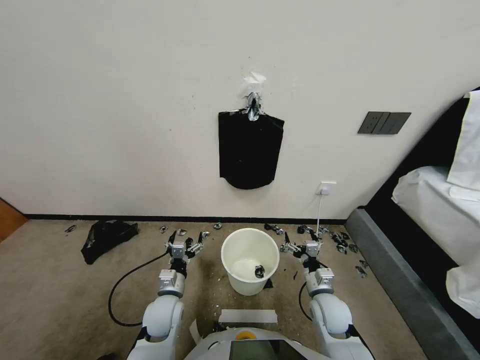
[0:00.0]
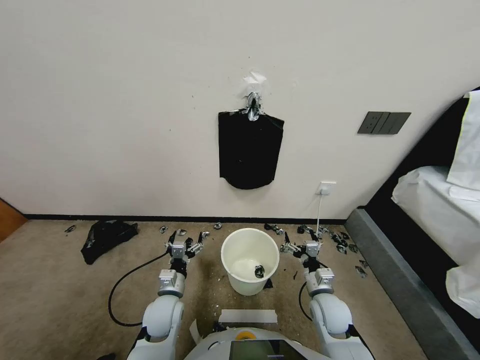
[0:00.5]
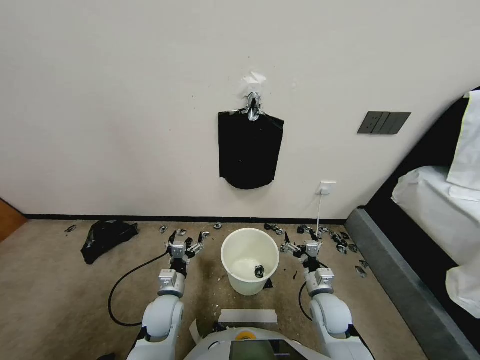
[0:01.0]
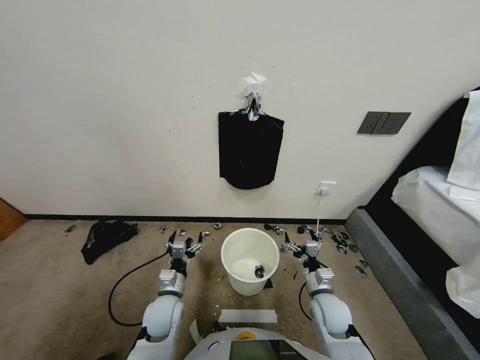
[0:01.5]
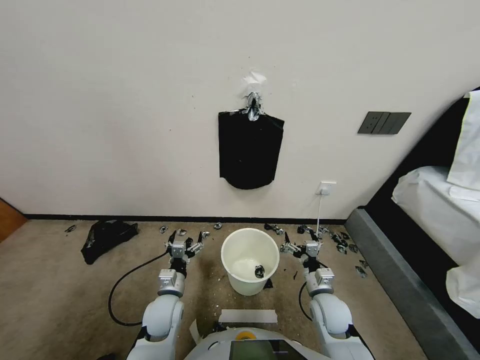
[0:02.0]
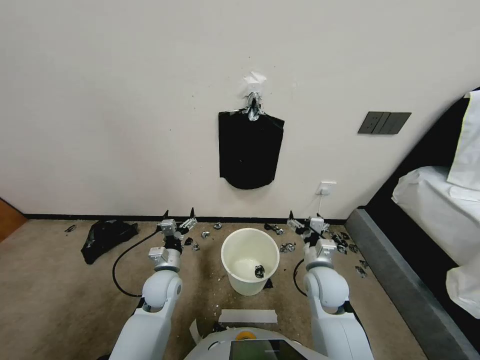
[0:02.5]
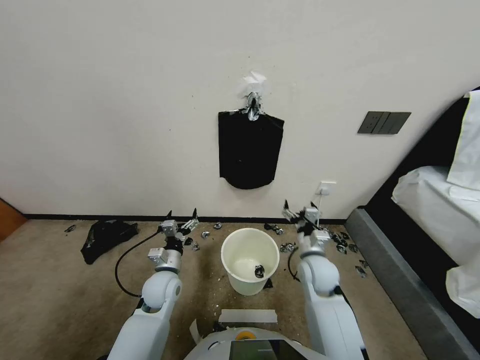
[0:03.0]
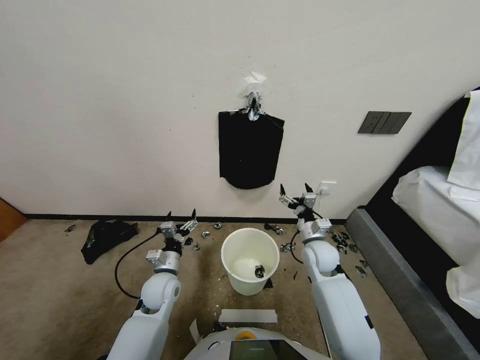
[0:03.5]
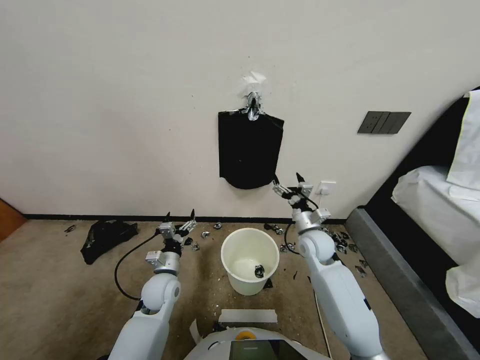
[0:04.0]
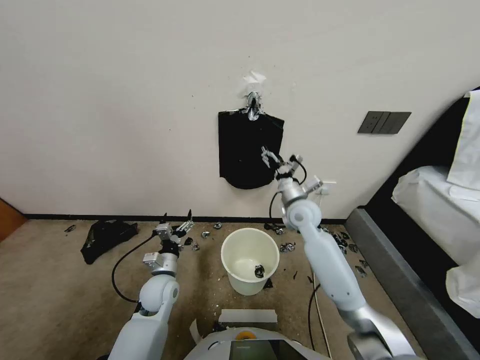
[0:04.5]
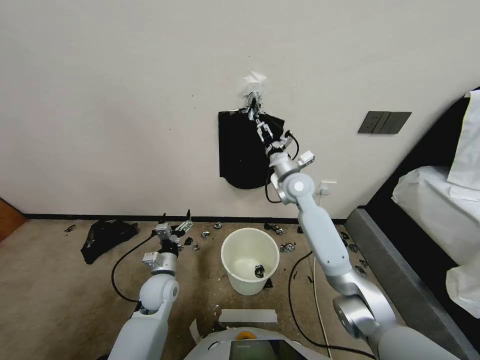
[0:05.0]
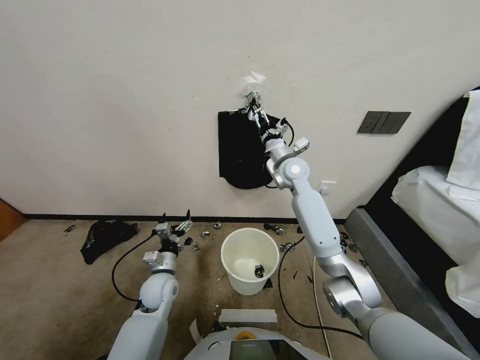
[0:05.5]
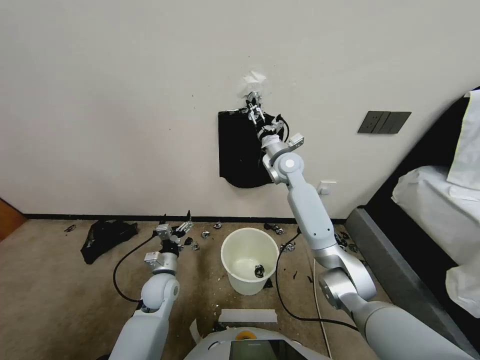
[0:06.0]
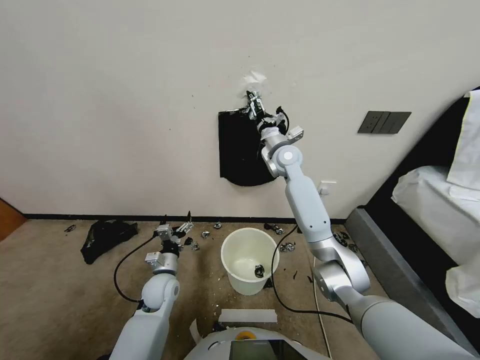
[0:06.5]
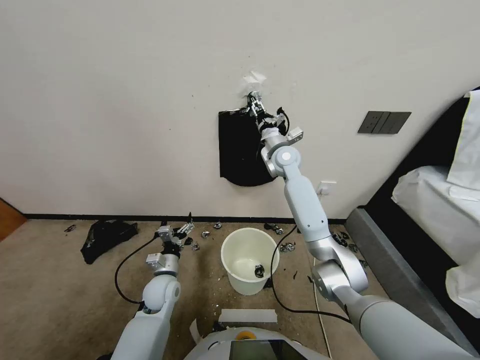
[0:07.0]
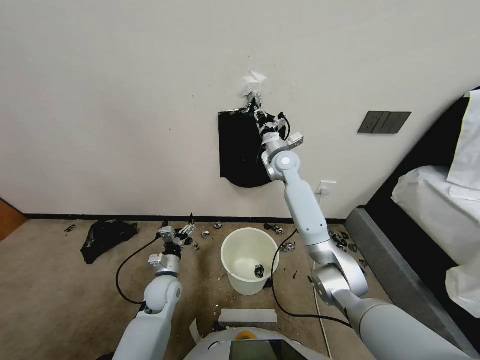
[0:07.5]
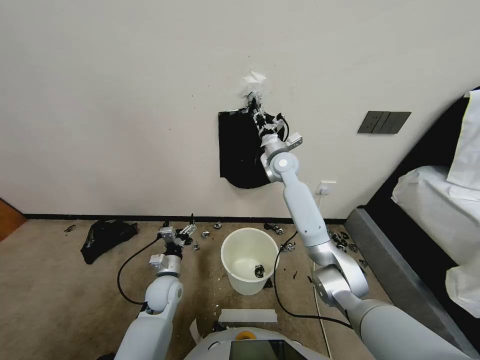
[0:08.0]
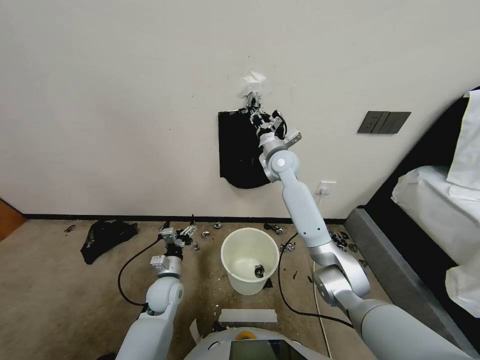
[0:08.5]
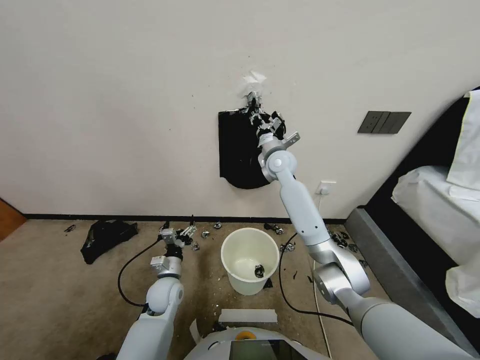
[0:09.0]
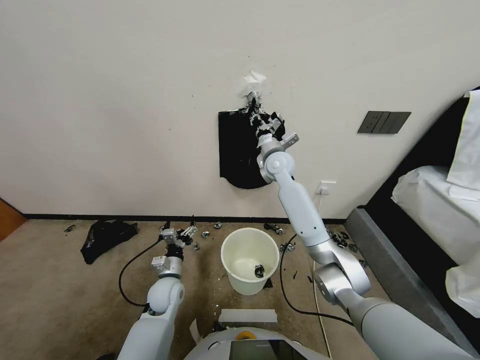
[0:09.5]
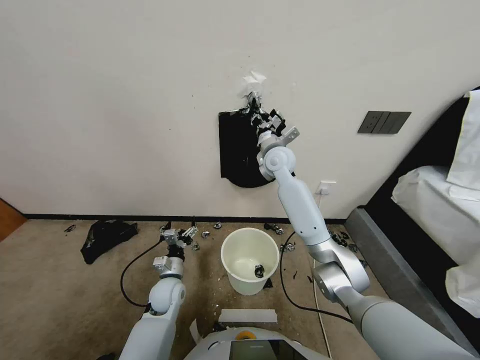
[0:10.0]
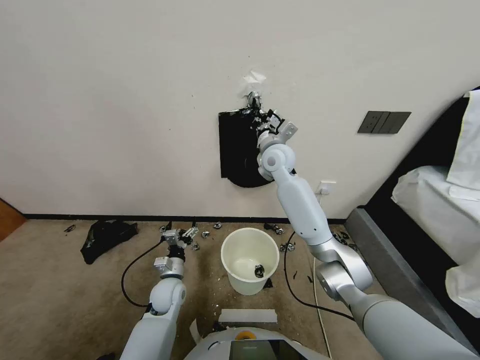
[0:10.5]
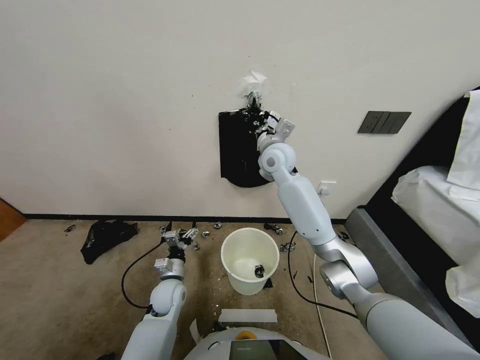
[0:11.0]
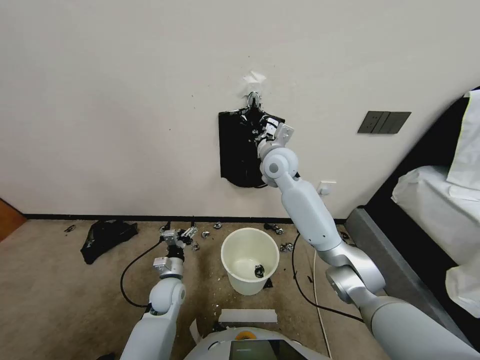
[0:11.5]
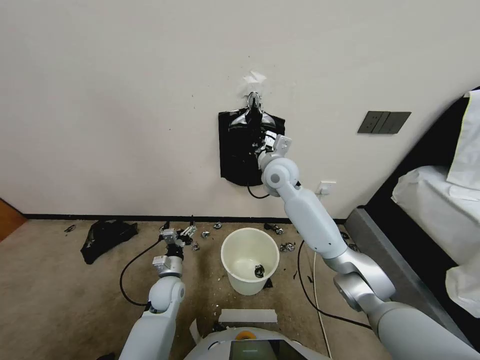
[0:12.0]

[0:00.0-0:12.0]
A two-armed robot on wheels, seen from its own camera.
Task of the whole recording: Place a trash bag onto the trash bin.
2.0 to 4.0 s: The right gripper heads forward and upward, covering about 20 cm.
4.0 to 6.0 s: The right gripper heads forward and upward, covering approximately 20 cm.
6.0 to 8.0 s: The right gripper closes.
8.0 to 10.0 s: The right gripper moves approximately 5 cm.
10.0 to 12.0 s: The right gripper moves backward, approximately 5 cm.

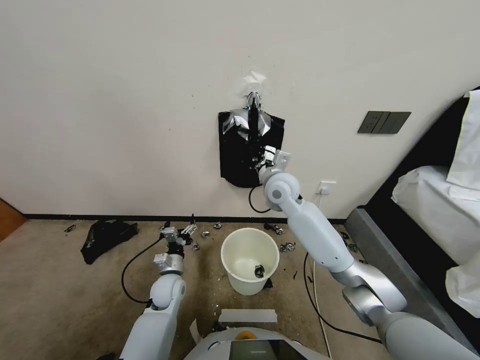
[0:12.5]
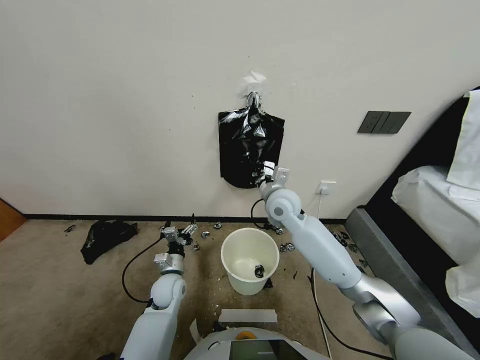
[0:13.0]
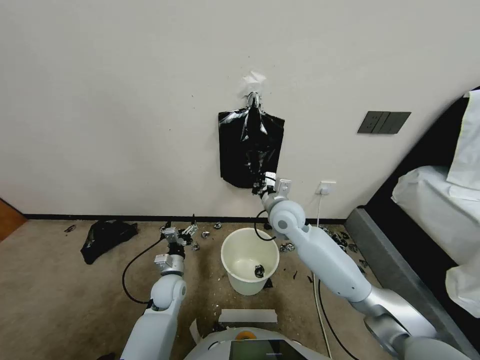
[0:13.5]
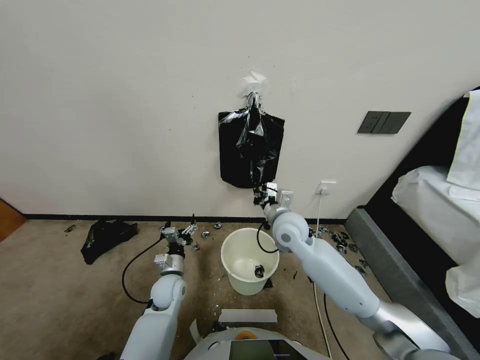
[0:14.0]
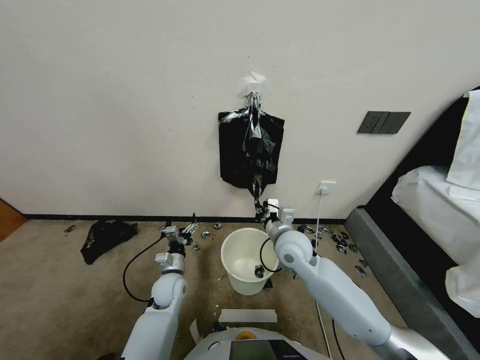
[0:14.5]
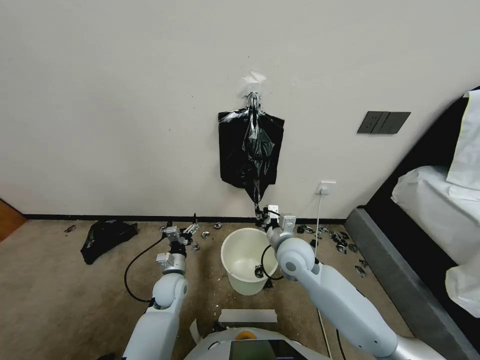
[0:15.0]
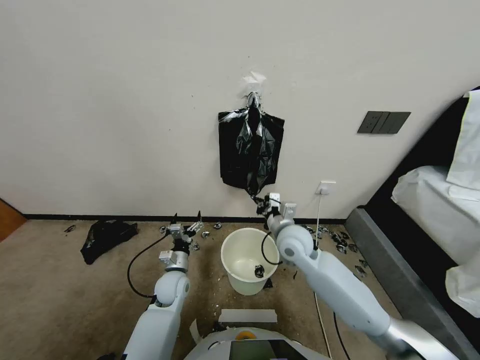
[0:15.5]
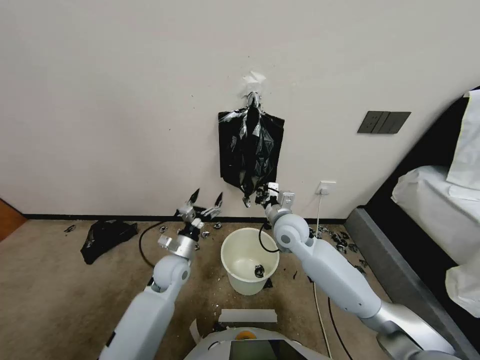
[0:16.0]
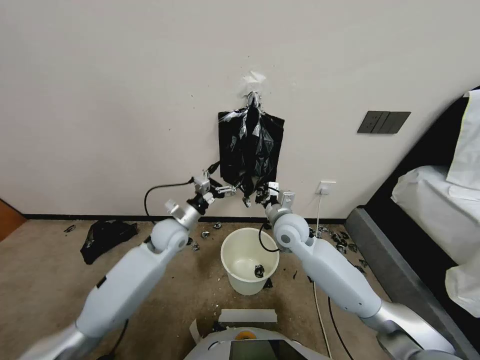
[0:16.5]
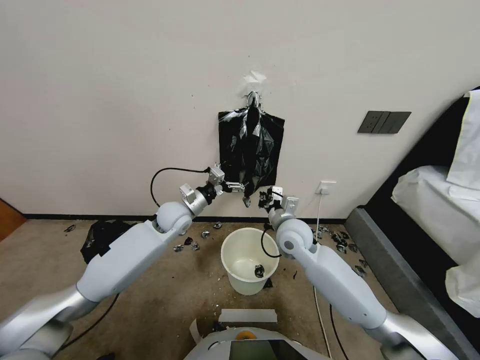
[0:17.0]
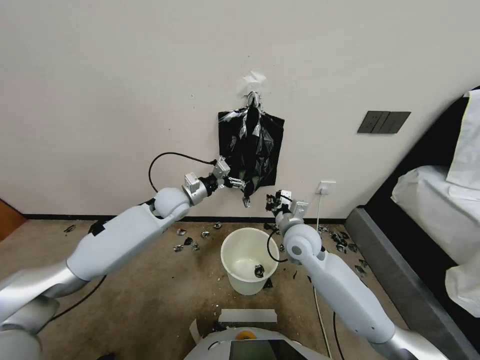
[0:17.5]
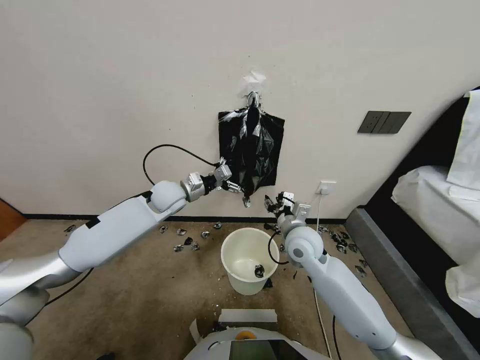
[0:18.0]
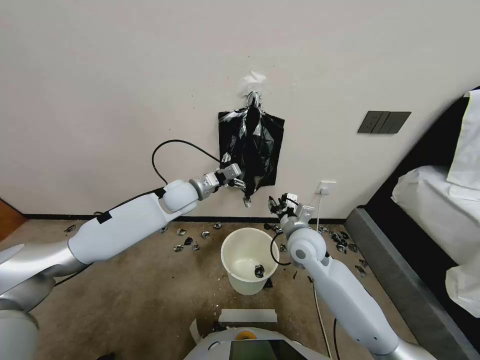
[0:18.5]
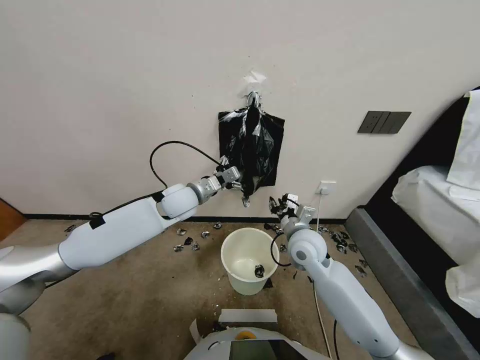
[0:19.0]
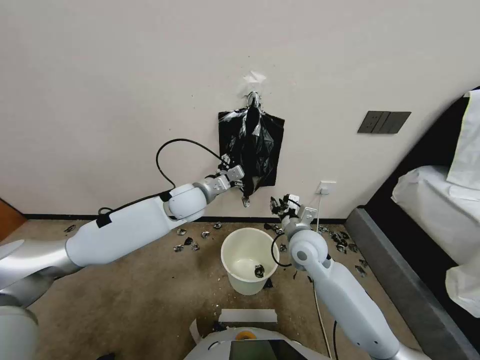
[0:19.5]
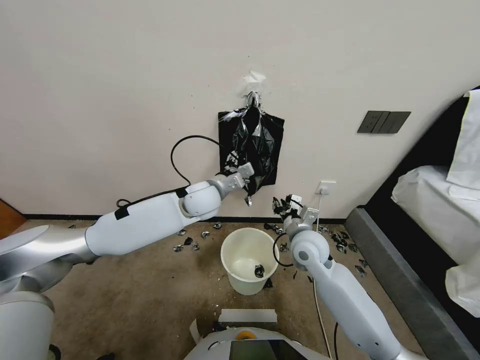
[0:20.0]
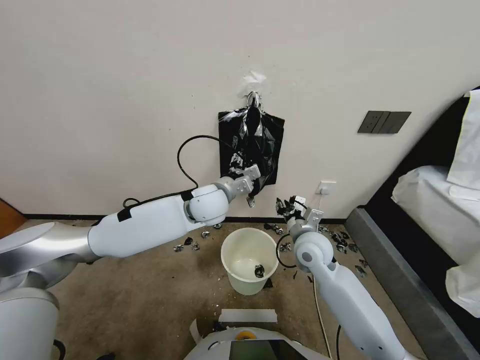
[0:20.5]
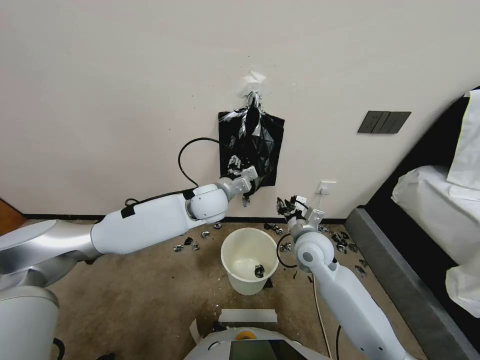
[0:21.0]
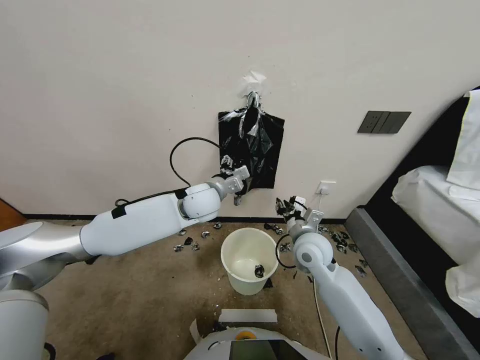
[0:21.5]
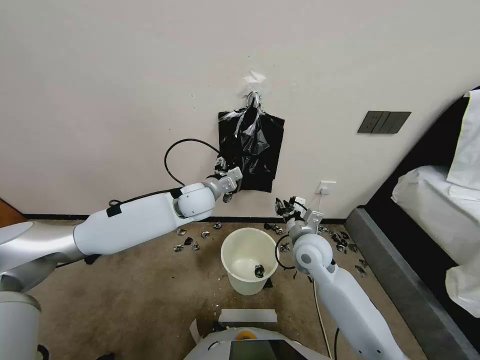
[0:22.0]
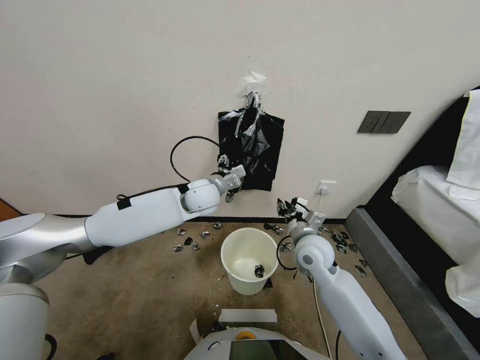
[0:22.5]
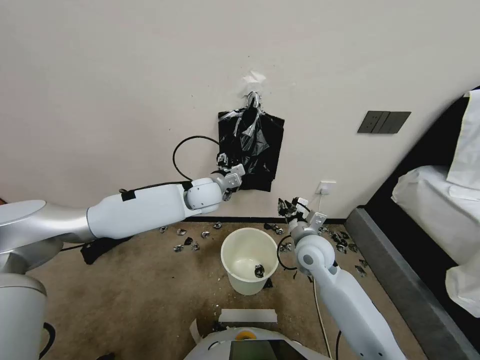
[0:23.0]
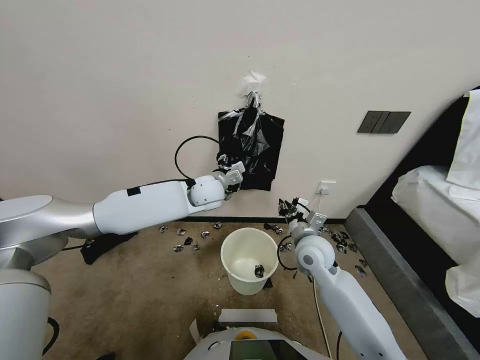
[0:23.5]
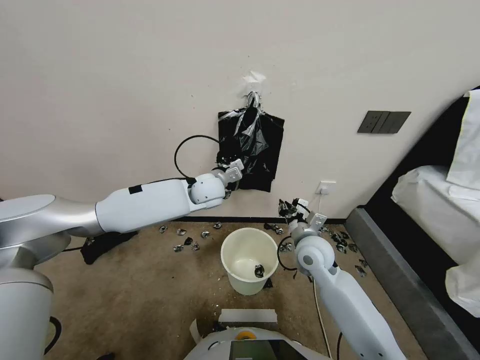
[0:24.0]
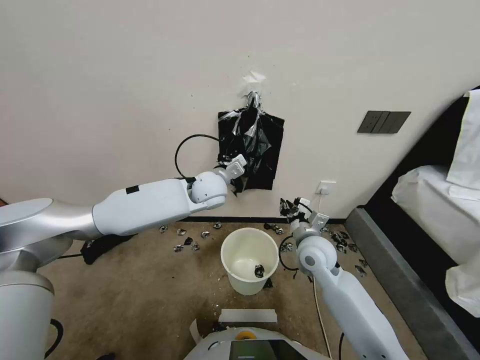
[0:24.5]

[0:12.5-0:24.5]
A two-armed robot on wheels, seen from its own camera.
Task of the whole recording: Place a trash bag onto the trash bin.
12.5 to 14.5 s: The right gripper shifts some 15 cm backward and downward.
14.5 to 16.5 s: The right gripper shifts approximately 5 cm forward. Meanwhile the left gripper heads upward and forward, covering some 20 cm.
16.5 to 18.5 s: The left gripper moves upward and forward, roughly 10 cm; the right gripper changes place by approximately 5 cm.
18.5 to 20.5 s: The left gripper is displaced to the right by roughly 10 cm.
20.5 to 22.5 s: The grippers stay close to where they were, moving slightly.
22.5 to 24.5 s: The left gripper closes its fingers.

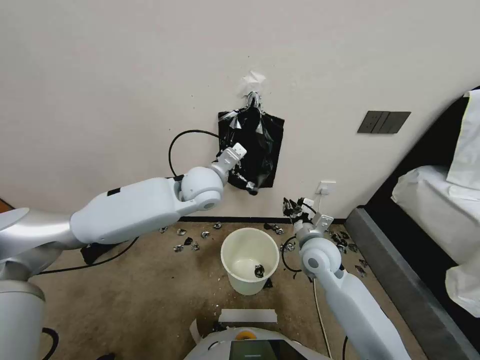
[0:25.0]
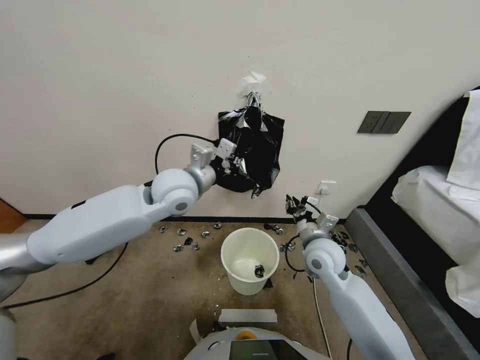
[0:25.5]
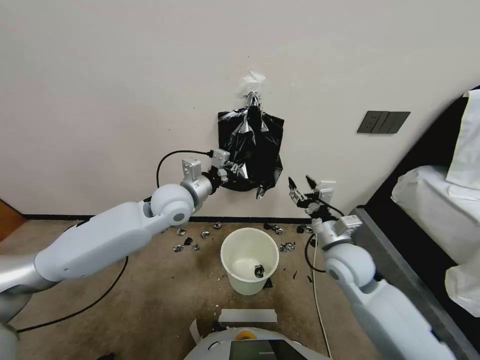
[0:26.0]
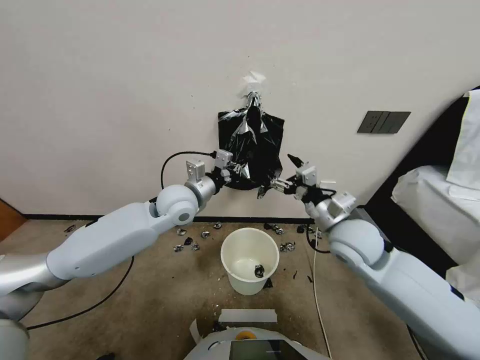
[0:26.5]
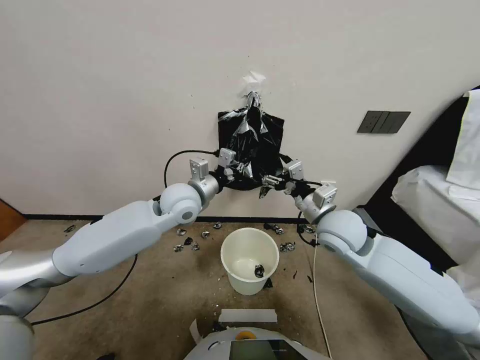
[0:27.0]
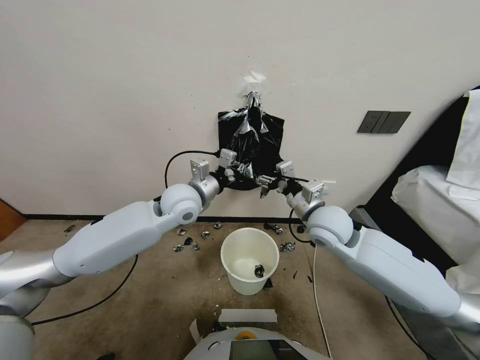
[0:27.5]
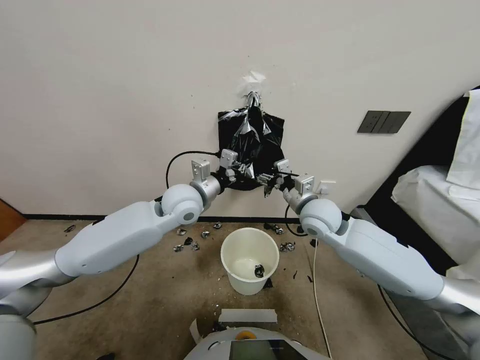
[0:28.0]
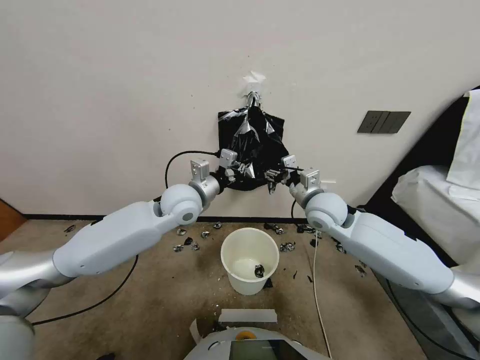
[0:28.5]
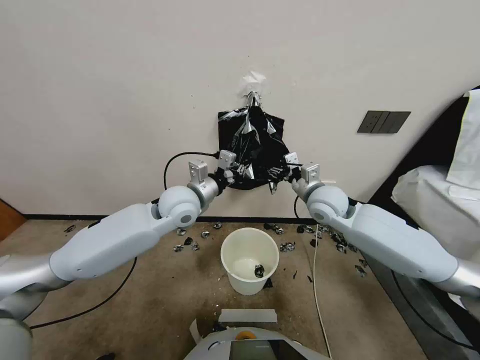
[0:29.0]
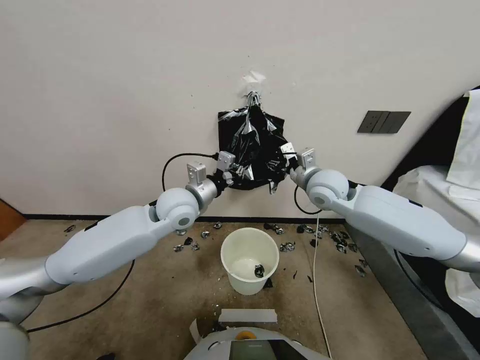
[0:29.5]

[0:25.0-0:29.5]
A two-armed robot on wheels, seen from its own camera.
Task of the whole recording: Place a trash bag onto the trash bin.
25.0 to 27.0 s: The right gripper moves upward, some 10 cm, and opens up. The left gripper changes place by some 5 cm.
27.0 to 29.5 s: The right gripper is displaced forward by roughly 10 cm.
